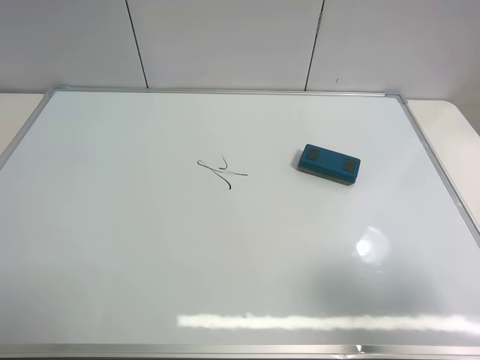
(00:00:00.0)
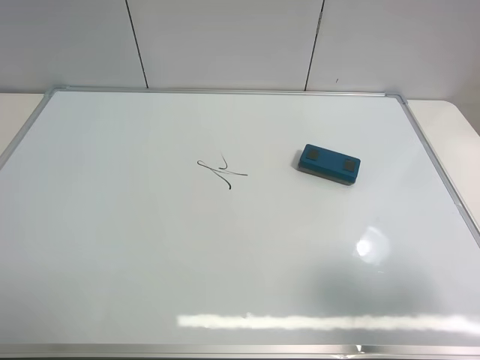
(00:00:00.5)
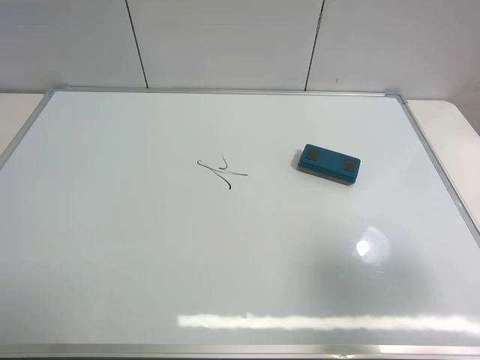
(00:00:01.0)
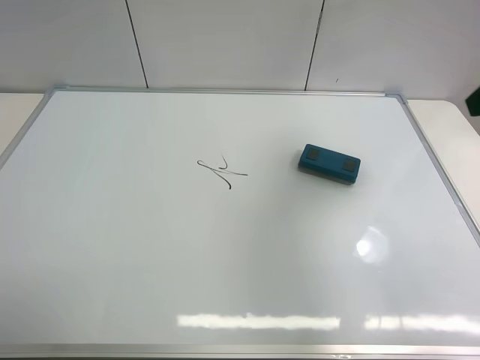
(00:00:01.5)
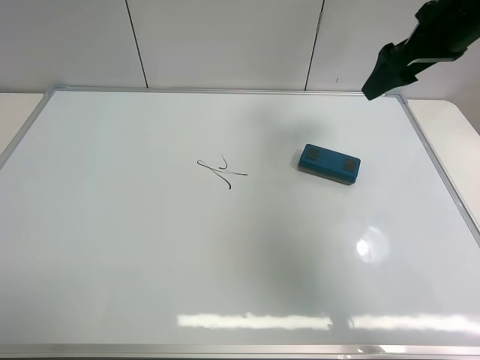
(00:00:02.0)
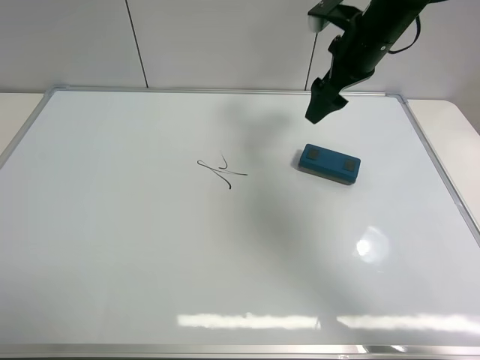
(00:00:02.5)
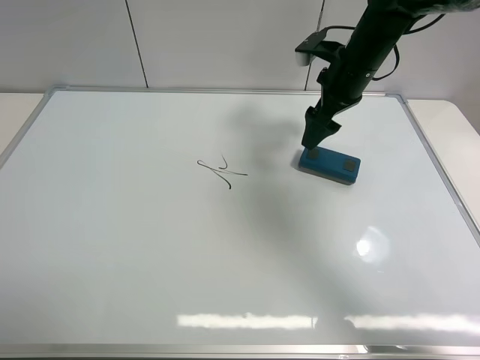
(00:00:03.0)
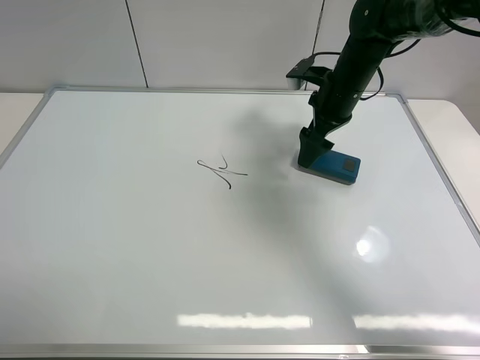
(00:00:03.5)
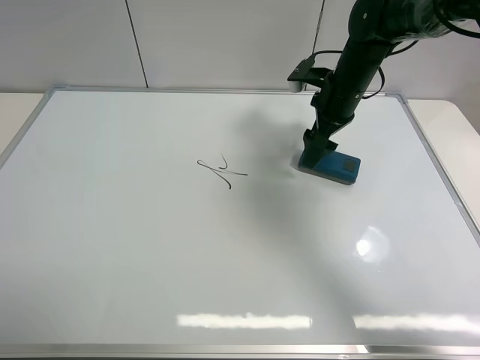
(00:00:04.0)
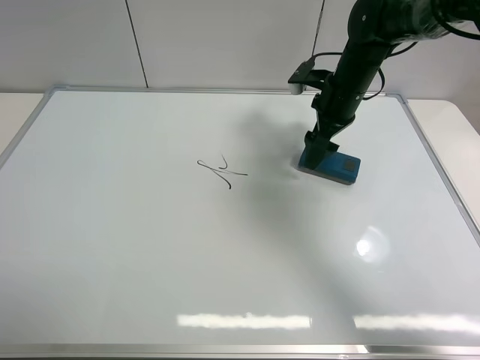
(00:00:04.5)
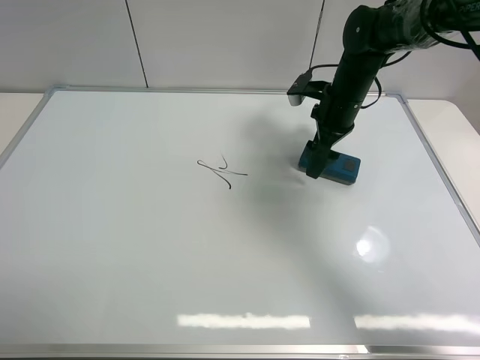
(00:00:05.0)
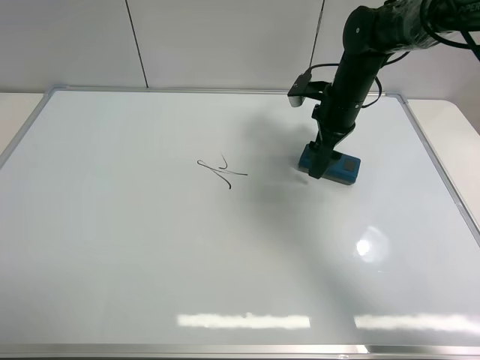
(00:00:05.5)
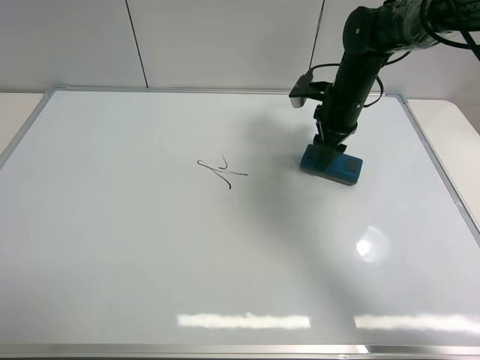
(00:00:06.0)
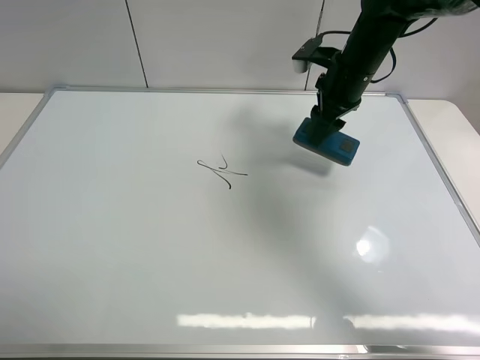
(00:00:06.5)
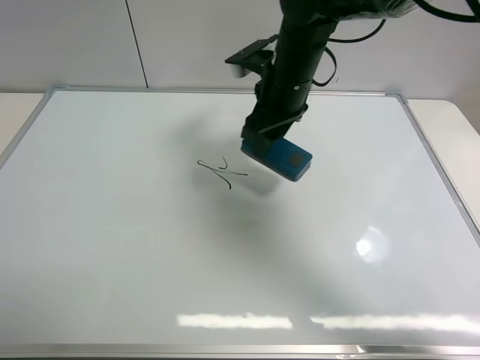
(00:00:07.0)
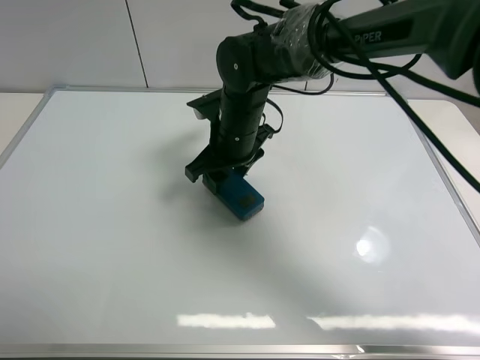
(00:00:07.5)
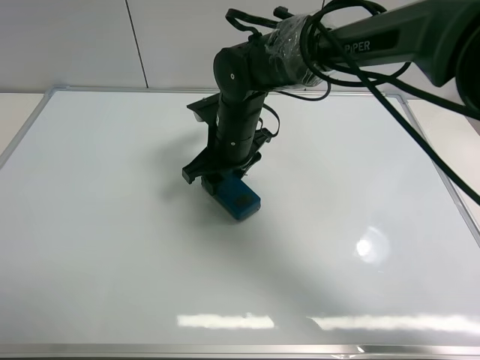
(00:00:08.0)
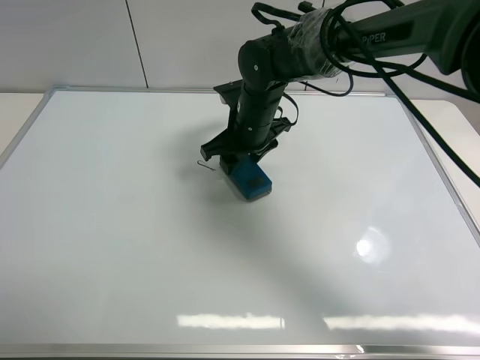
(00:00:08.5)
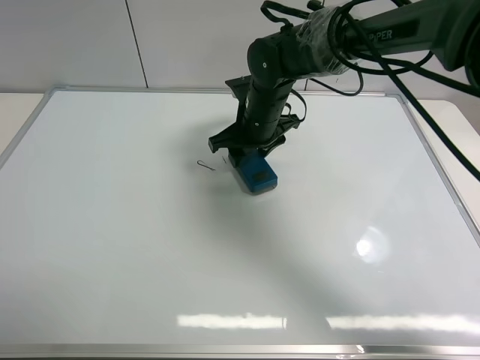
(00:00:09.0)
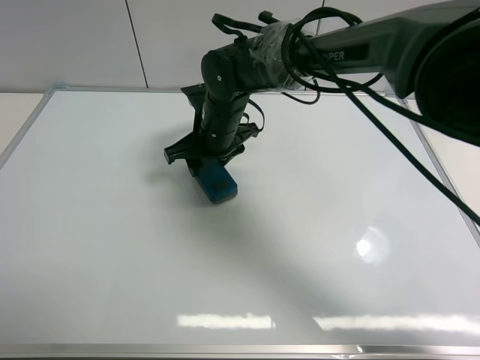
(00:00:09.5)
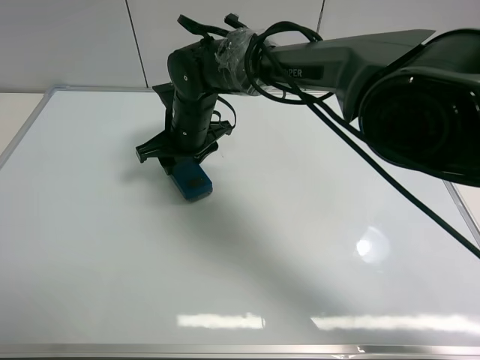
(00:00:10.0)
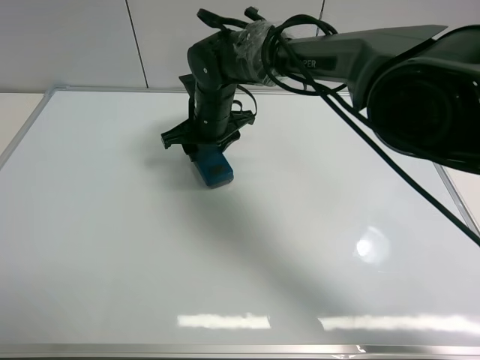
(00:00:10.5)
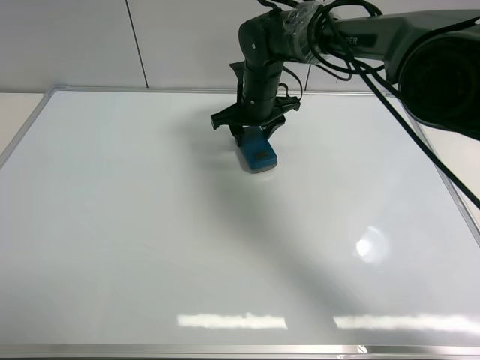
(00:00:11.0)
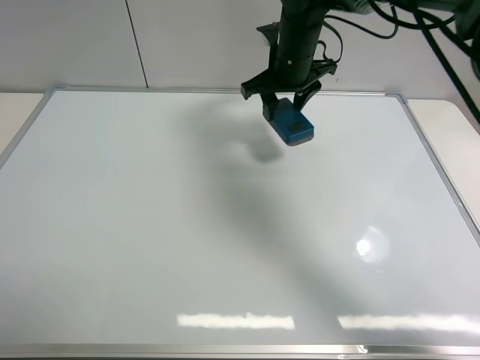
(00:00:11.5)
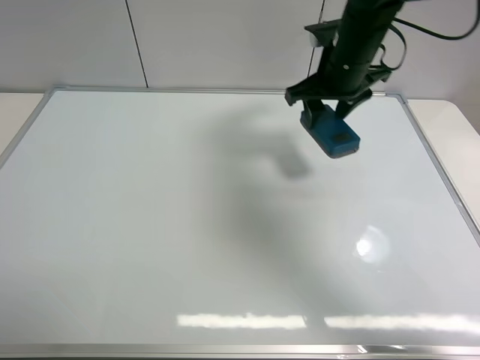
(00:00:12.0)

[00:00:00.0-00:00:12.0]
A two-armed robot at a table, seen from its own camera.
Task of the whole recording: use the right gripper to pick up the board eraser, wipe the notes on the whiteboard clean, and then put them back in place.
Step, 00:00:00.0 to 00:00:06.0: Pick up the board eraser with right gripper.
Step, 00:00:06.5 to 00:00:11.0: Wipe off the writing on the board with right gripper.
00:00:00.0 to 00:00:02.0: The right gripper is displaced forward by about 35 cm.
00:00:02.0 to 00:00:04.0: The right gripper moves downward, to the left and forward, approximately 15 cm.
00:00:04.0 to 00:00:06.0: The right gripper closes its fingers.
00:00:06.0 to 00:00:08.0: The right gripper heads to the left and backward, covering approximately 20 cm.
00:00:08.0 to 00:00:10.0: The right gripper goes about 5 cm to the left.
00:00:10.0 to 00:00:12.0: The right gripper shifts approximately 25 cm to the right and upward.

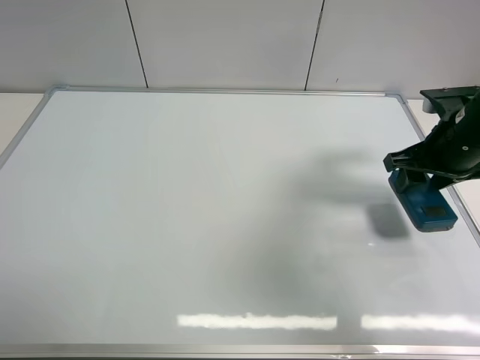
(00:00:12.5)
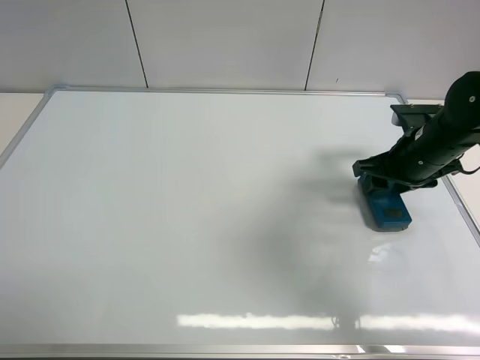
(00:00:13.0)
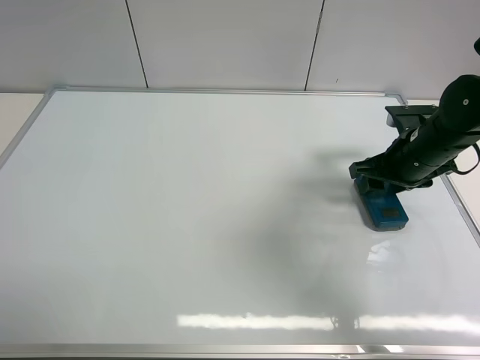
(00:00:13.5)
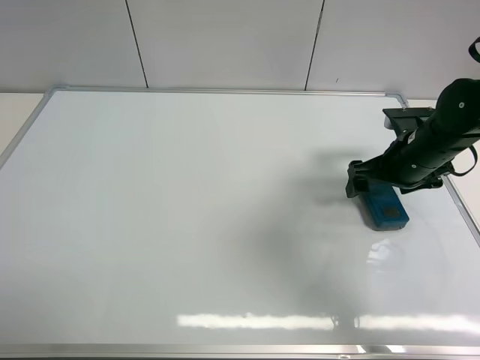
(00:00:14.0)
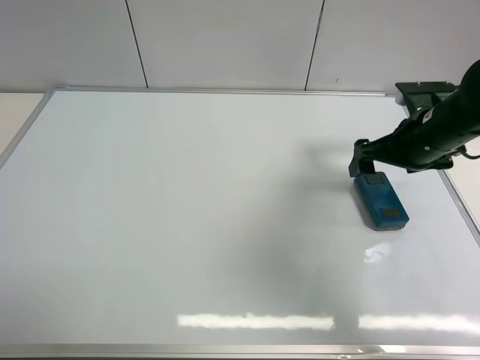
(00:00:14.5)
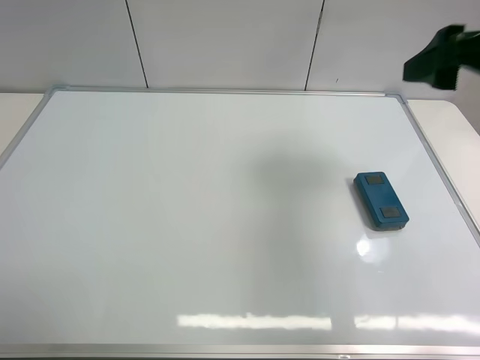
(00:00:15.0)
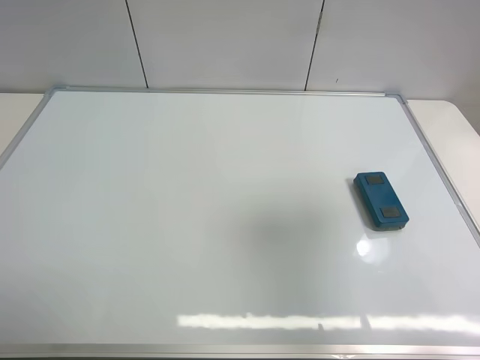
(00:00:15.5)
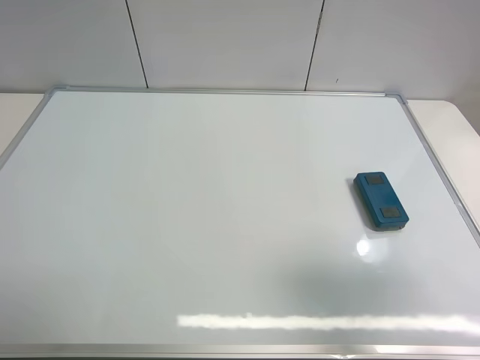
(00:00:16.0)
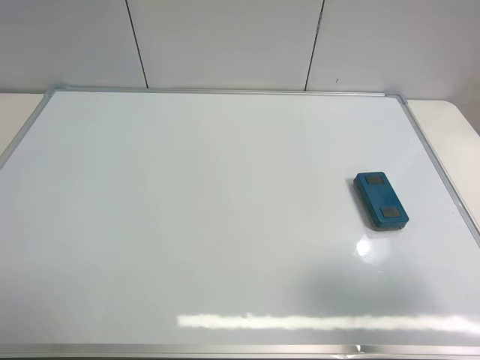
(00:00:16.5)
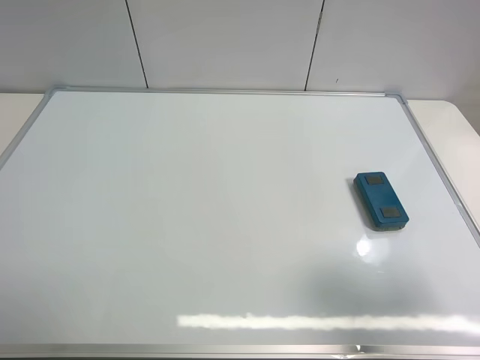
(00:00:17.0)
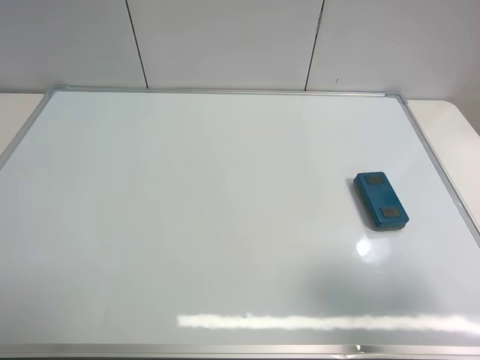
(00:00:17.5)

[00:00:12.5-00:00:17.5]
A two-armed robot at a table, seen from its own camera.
Task of the whole recording: use the right gripper to pick up the board eraser, wipe the notes on the whiteboard clean, and then put them back in place.
00:00:12.5 to 00:00:15.0: The right gripper shifts approximately 15 cm upward and backward, and opens its fingers.
00:00:15.0 to 00:00:17.5: The right gripper travels backward by some 20 cm.
